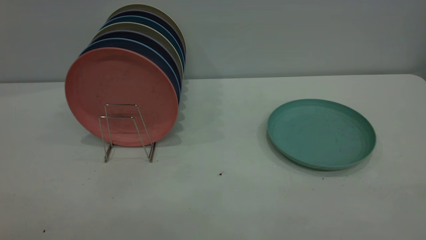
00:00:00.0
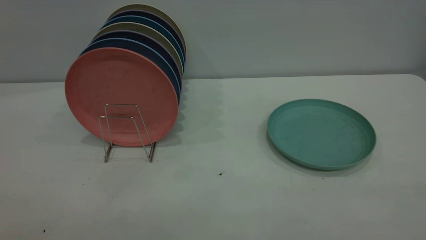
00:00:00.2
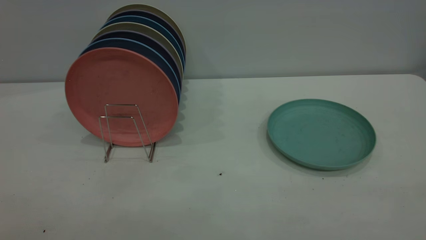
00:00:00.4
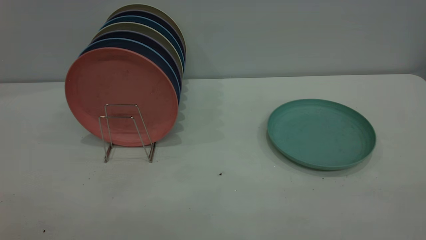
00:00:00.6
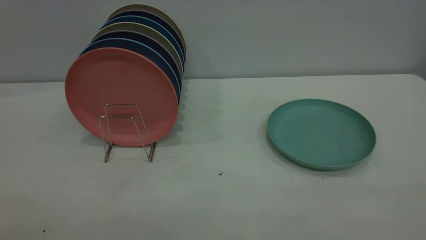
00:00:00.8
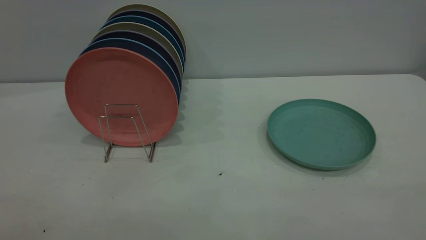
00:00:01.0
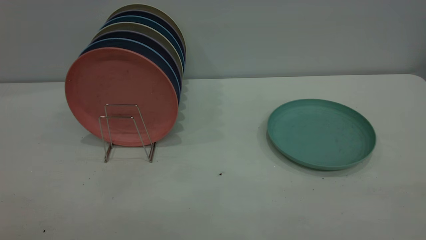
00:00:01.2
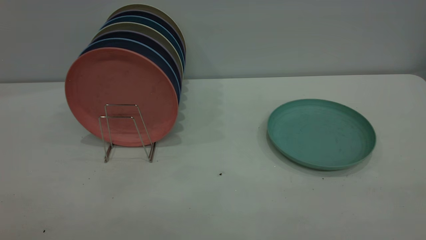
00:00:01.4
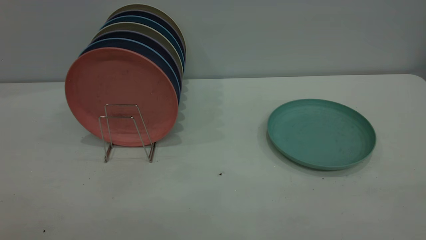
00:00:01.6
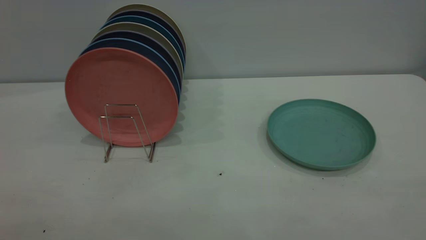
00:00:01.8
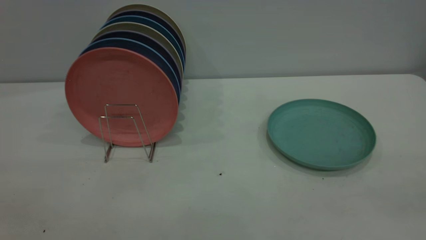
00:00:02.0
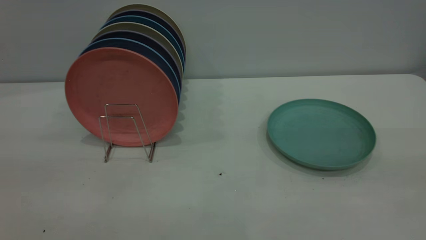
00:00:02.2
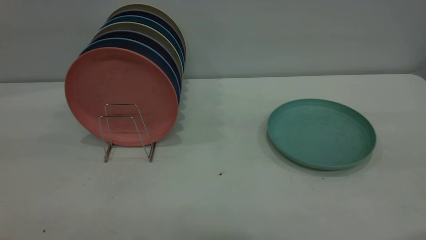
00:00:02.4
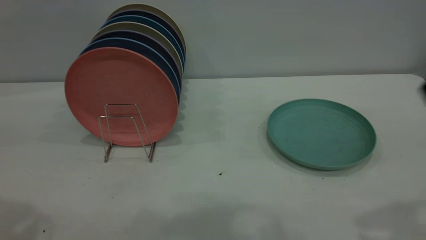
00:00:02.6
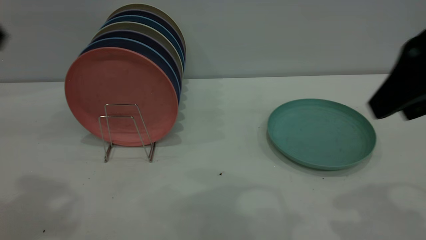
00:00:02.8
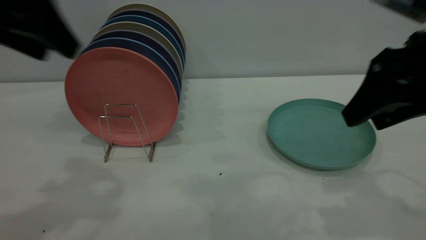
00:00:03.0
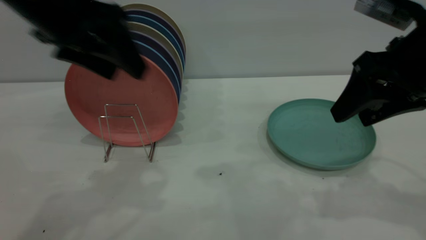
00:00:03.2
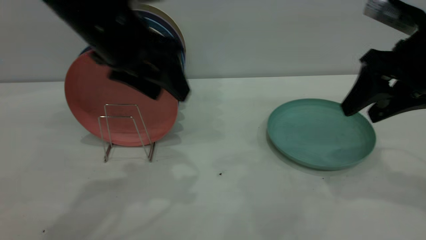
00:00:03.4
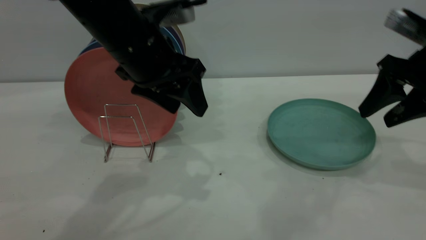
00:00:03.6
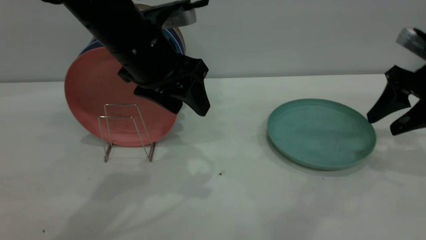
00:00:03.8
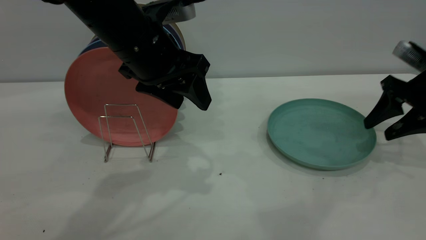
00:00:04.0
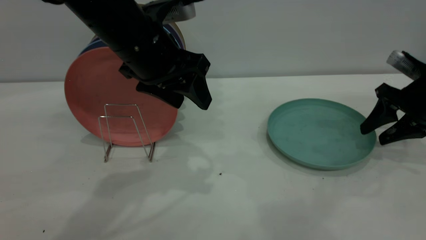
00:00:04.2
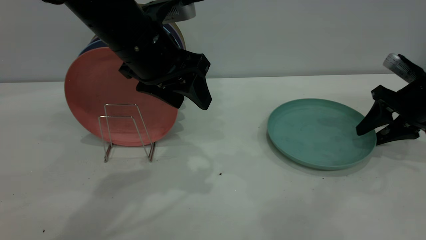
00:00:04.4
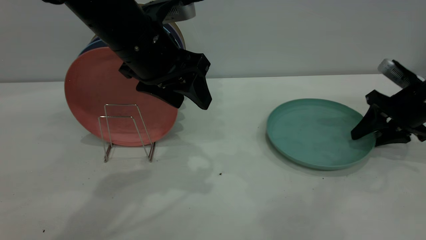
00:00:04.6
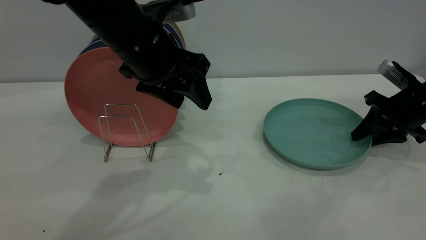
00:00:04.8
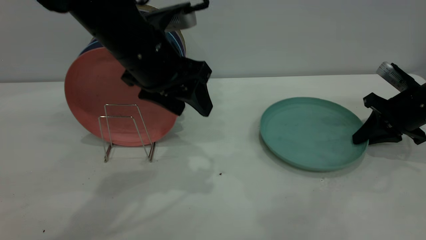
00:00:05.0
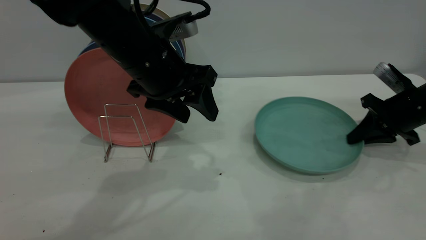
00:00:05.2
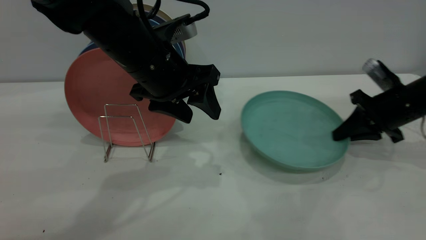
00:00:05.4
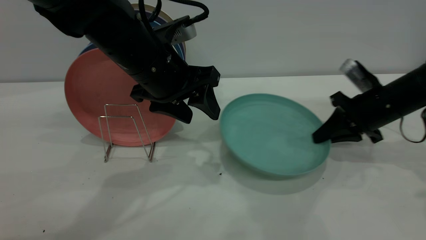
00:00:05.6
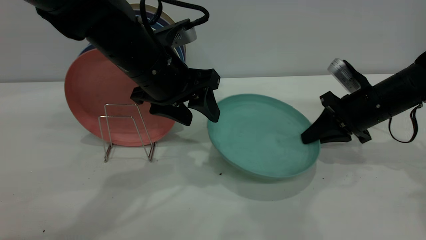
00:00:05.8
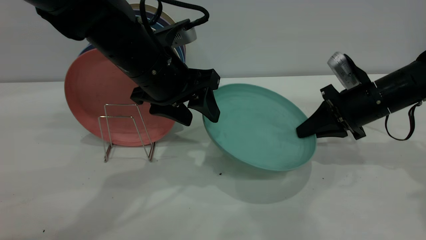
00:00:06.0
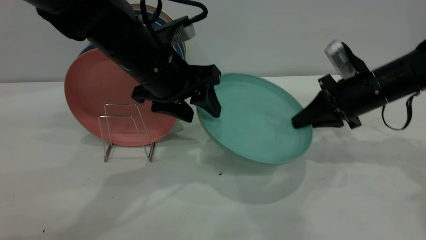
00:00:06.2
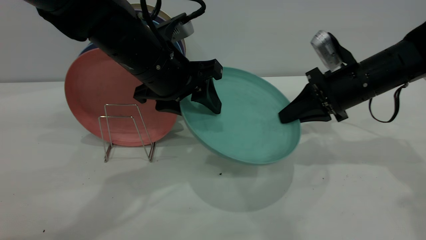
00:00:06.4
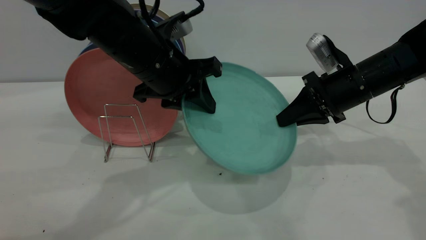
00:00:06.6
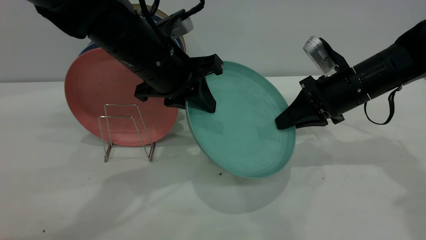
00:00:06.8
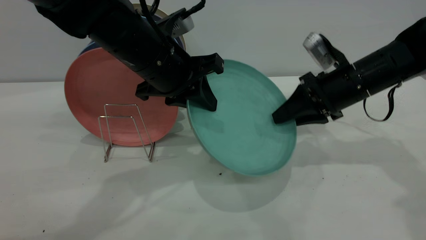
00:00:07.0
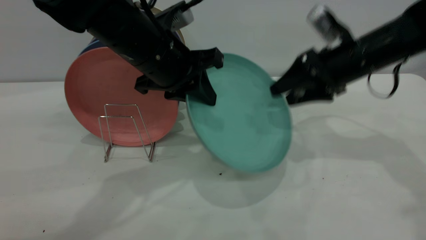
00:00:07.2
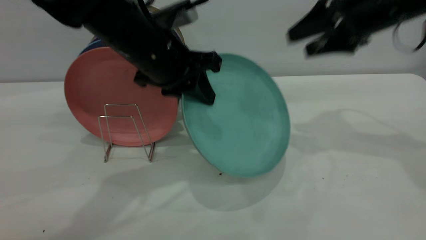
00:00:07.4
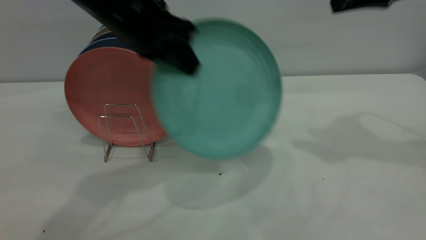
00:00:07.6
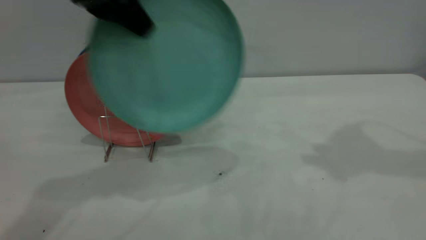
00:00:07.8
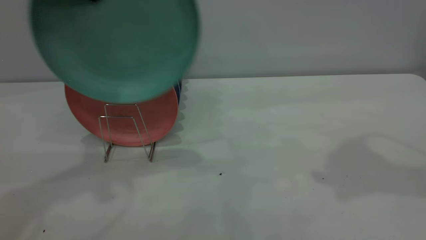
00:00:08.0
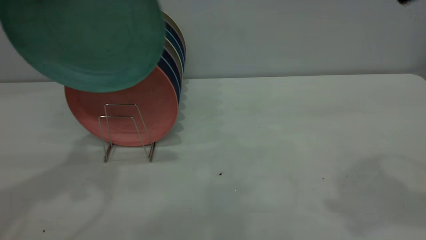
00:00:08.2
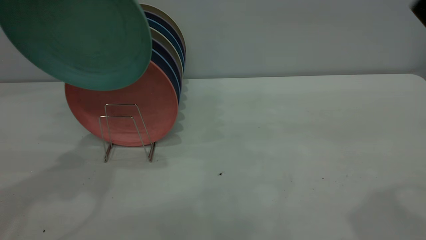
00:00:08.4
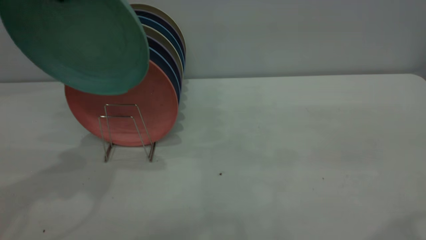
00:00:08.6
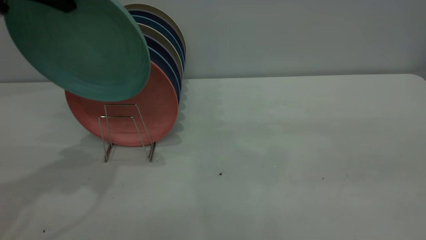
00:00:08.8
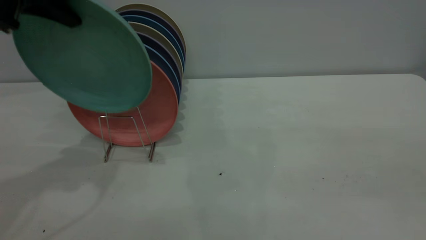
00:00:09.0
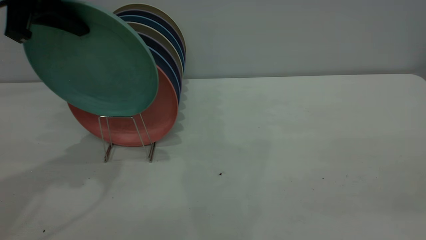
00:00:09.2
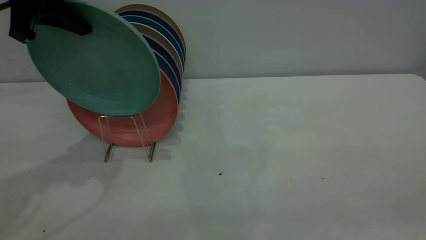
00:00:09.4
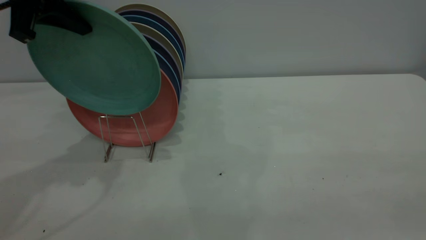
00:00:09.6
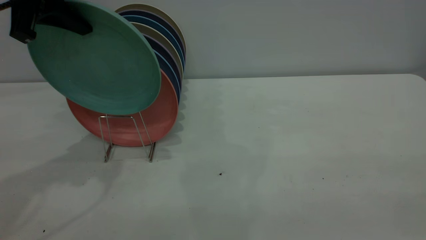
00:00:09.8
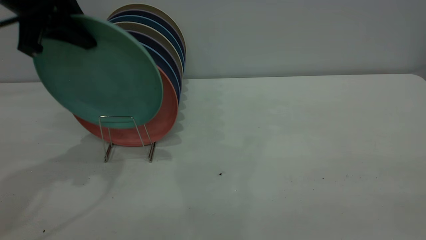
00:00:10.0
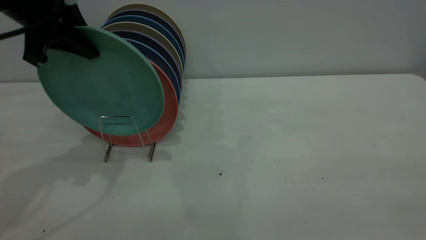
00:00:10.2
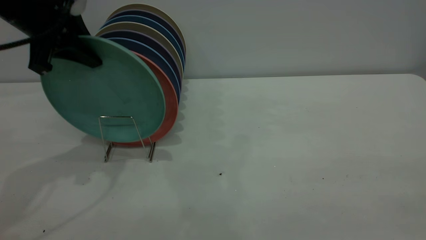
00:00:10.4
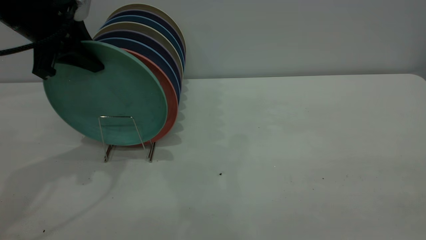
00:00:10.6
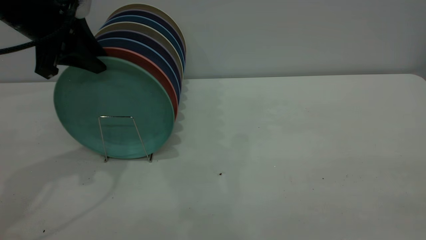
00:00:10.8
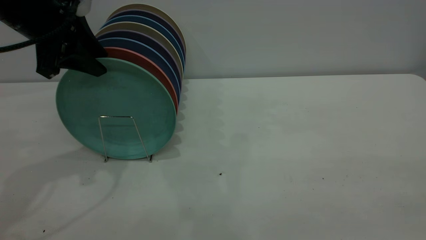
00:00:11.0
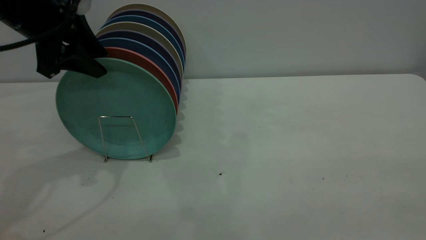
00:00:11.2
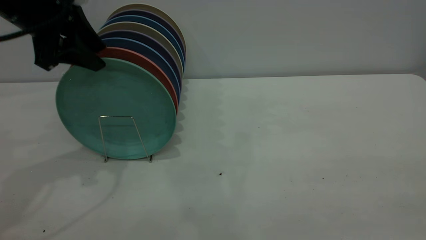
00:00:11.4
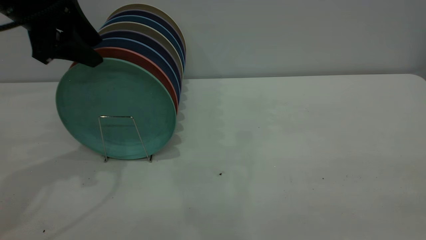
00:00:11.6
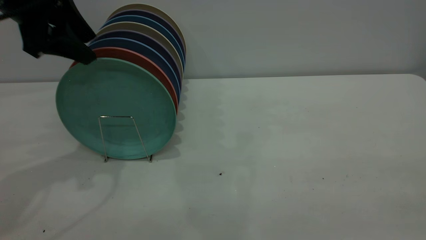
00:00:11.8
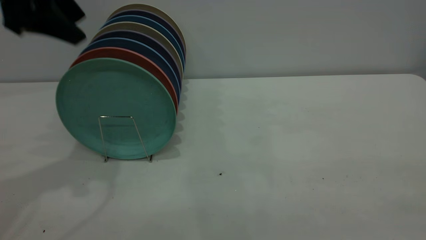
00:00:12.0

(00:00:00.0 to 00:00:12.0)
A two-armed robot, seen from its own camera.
Task of the whole recording: the right gripper grasp the green plate, the right gripper pass the green plate to the left gripper, and the left gripper place the green plate on the plate rack.
Step, 00:00:00.0 - 00:00:05.4: Pick up the plate with the right gripper.
Step, 00:00:05.6 - 00:00:07.2: Pass the plate from the right gripper to the left gripper.
Step, 00:00:07.4 - 00:00:11.8: Place the plate on the shelf.
00:00:00.0 - 00:00:01.6: Both grippers stay about where they are.
00:00:01.6 - 00:00:03.0: Both grippers travel together forward, roughly 30 cm. The right gripper opens up.
00:00:03.0 - 00:00:04.4: The left gripper moves to the right, downward and forward, some 15 cm. The right gripper goes about 25 cm downward, forward and to the right.
00:00:04.4 - 00:00:06.0: The right gripper is displaced to the left by some 10 cm, and closes up.
00:00:06.0 - 00:00:07.6: The left gripper is displaced upward by approximately 10 cm, and closes its fingers; the right gripper is displaced upward by about 25 cm, and opens.
00:00:07.6 - 00:00:09.0: The right gripper heads backward, covering some 30 cm, and closes, while the left gripper moves to the left, roughly 15 cm.
00:00:09.0 - 00:00:10.4: The left gripper is displaced downward by about 5 cm.
00:00:10.4 - 00:00:12.0: The left gripper moves upward, about 5 cm, and opens its fingers.

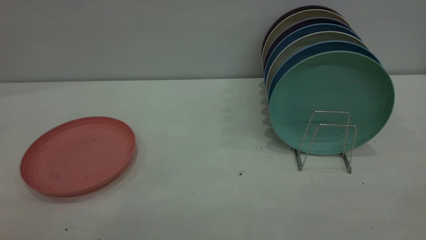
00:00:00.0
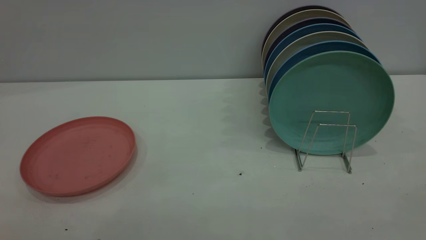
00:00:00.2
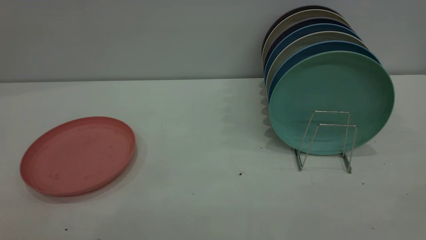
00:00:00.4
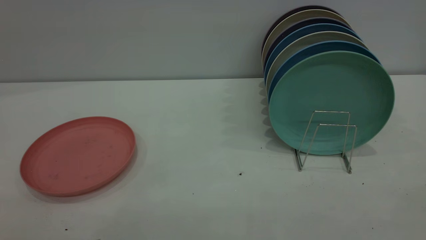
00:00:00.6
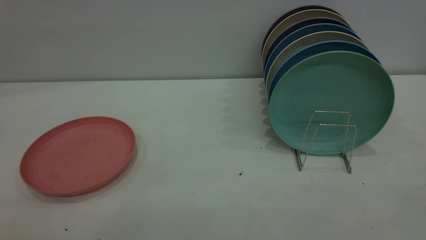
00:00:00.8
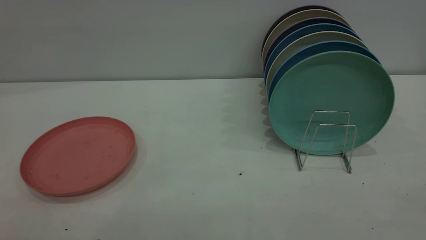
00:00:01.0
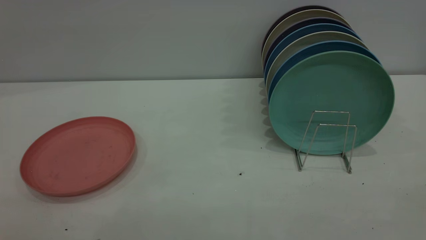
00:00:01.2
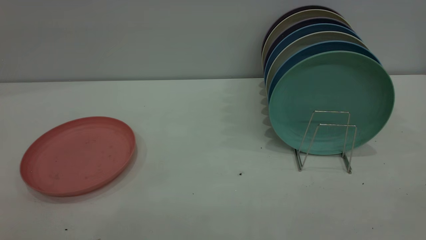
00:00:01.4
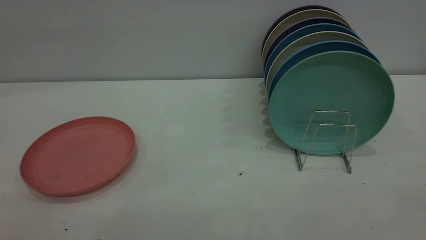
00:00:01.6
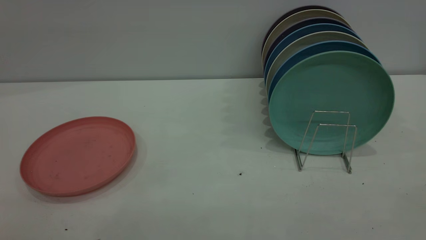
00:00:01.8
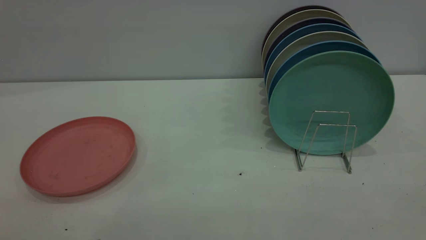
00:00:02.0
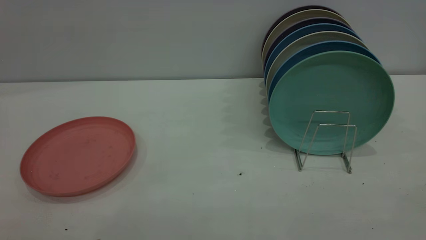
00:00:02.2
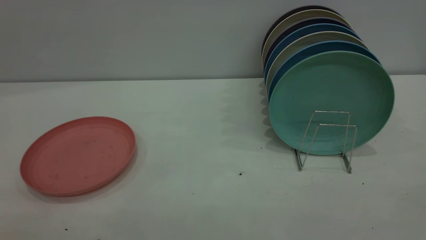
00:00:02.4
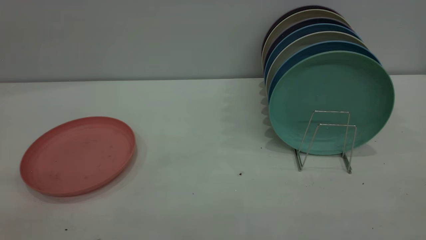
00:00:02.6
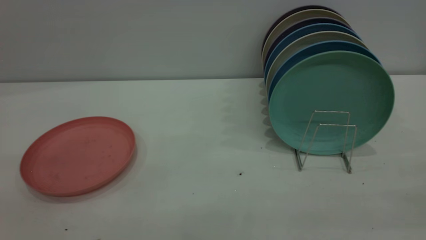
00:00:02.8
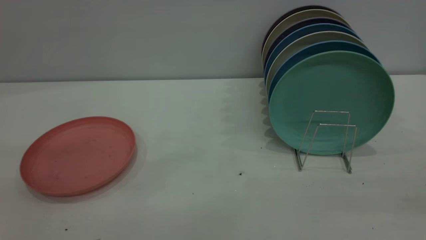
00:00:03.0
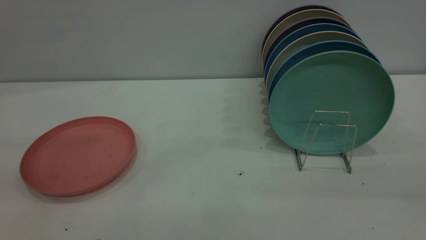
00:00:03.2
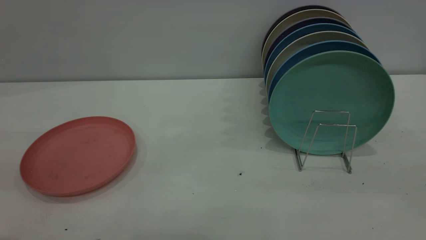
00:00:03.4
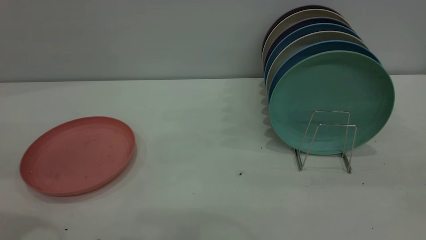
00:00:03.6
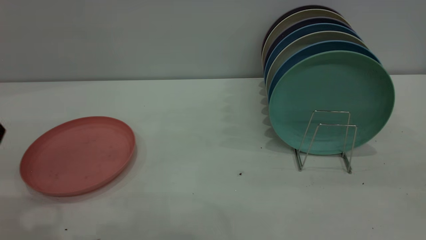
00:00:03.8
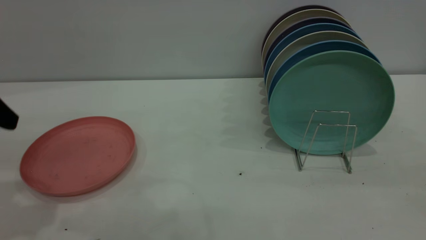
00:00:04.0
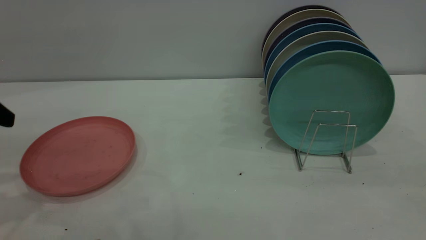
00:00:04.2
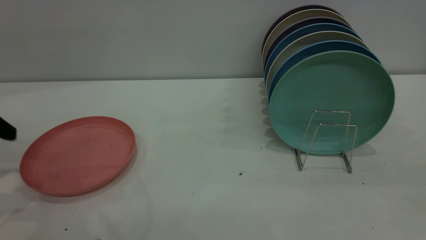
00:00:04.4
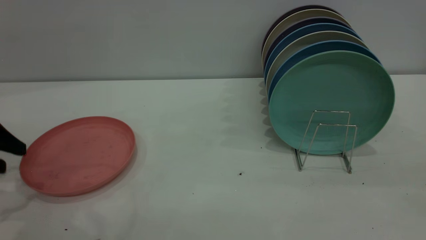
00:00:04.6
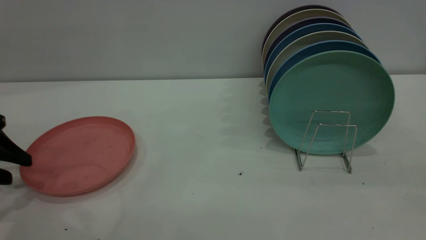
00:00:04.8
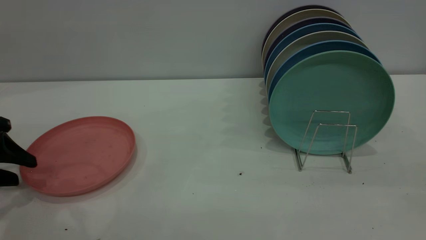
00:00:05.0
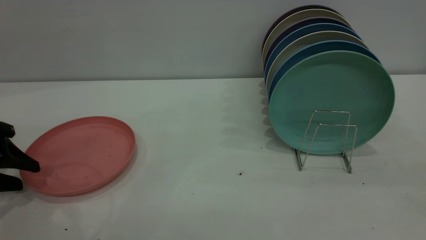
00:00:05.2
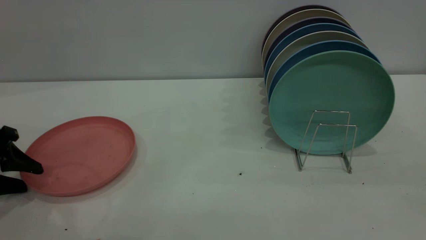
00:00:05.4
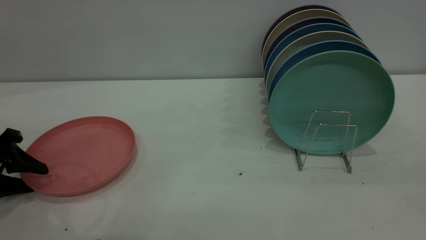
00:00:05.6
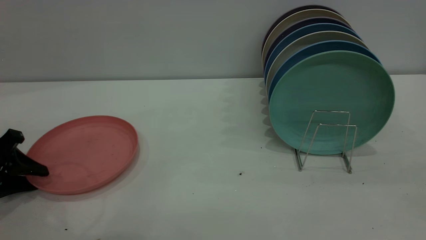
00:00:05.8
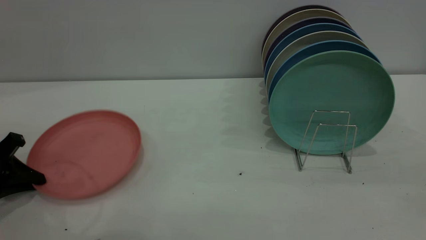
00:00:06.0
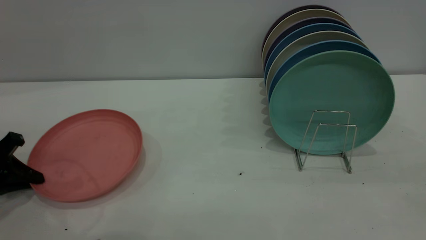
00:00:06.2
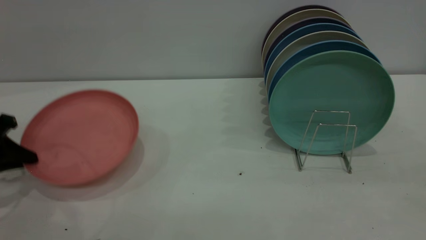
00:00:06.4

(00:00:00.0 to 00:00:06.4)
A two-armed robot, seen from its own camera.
Task of the whole recording: put the plate on the plate rack.
00:00:00.0 - 00:00:01.6: Both grippers stay put.
00:00:03.2 - 00:00:04.8: The left gripper heads downward, forward and to the left, covering some 25 cm.
00:00:04.8 - 00:00:06.4: The left gripper closes.
